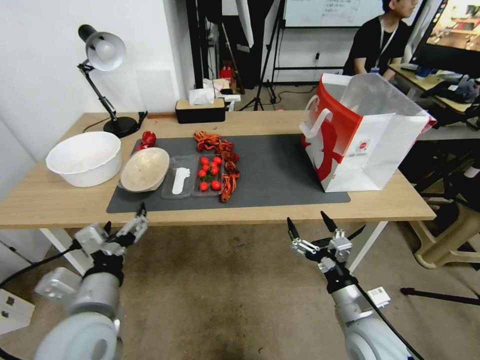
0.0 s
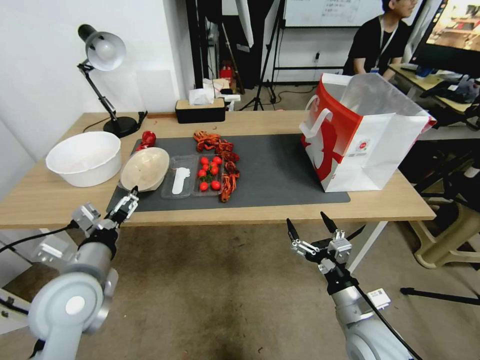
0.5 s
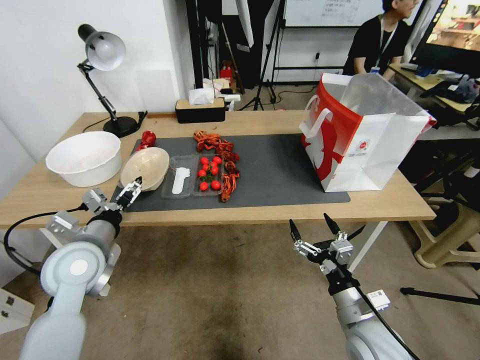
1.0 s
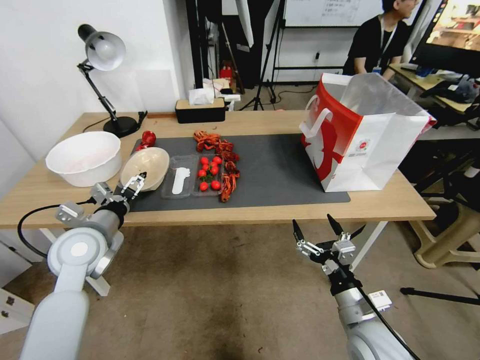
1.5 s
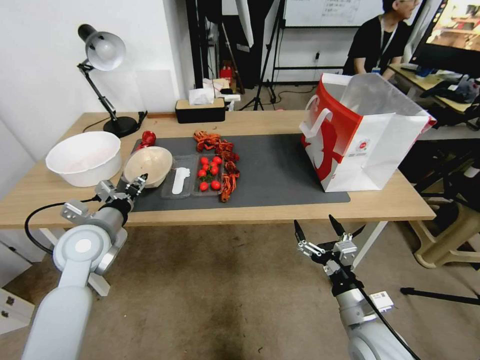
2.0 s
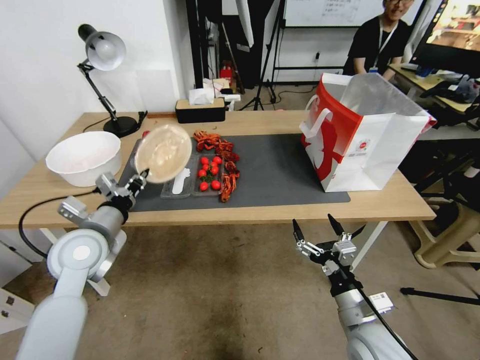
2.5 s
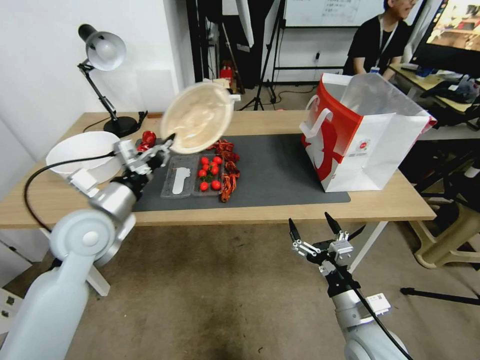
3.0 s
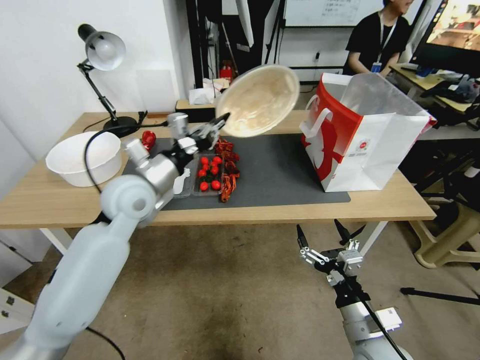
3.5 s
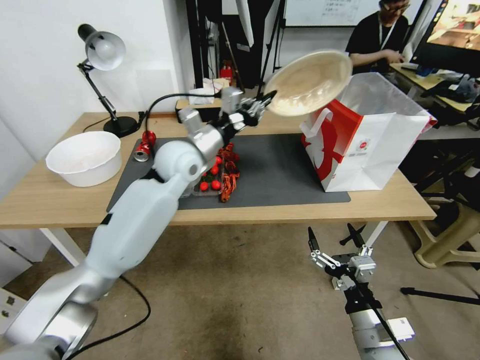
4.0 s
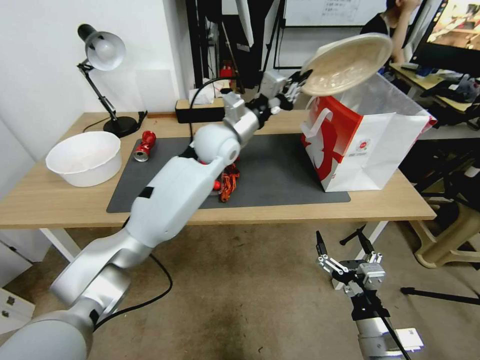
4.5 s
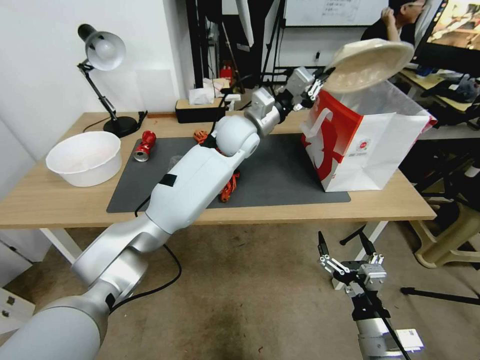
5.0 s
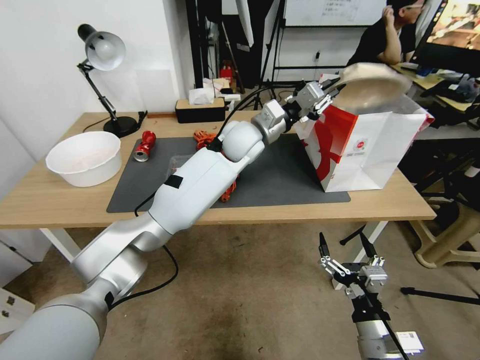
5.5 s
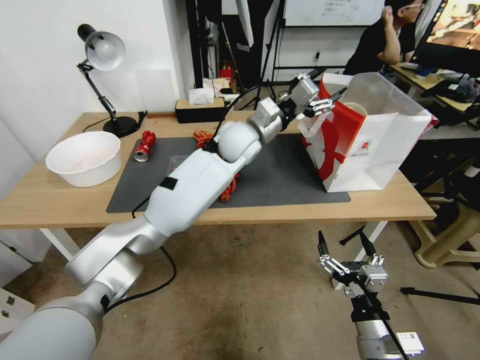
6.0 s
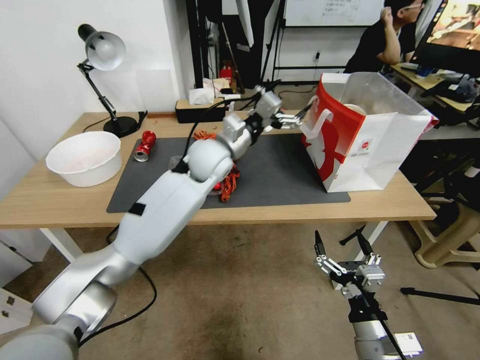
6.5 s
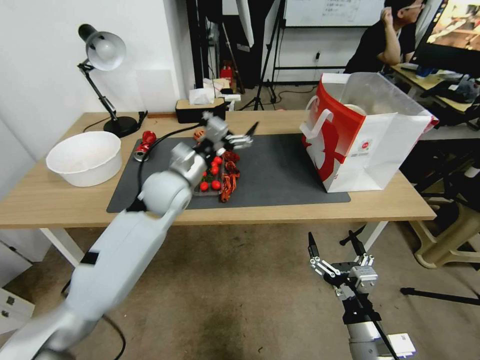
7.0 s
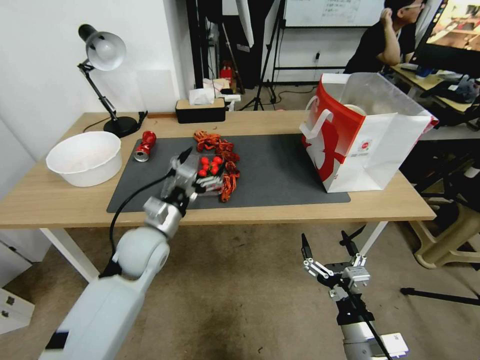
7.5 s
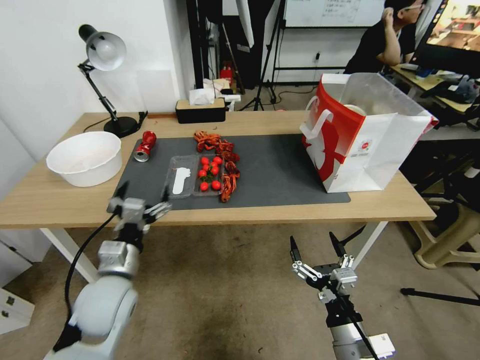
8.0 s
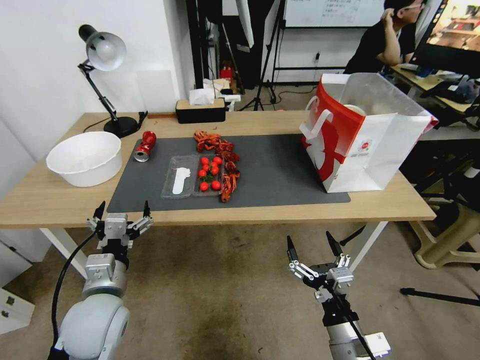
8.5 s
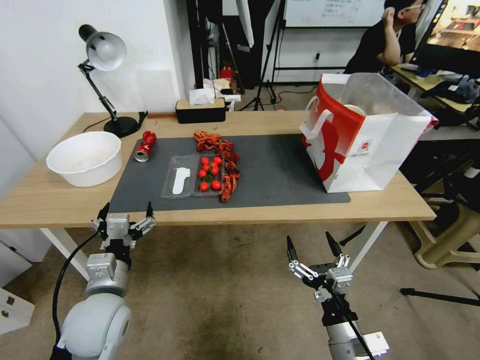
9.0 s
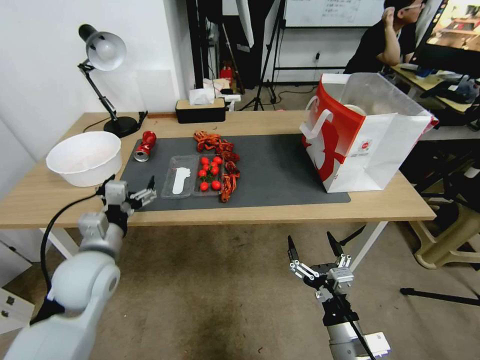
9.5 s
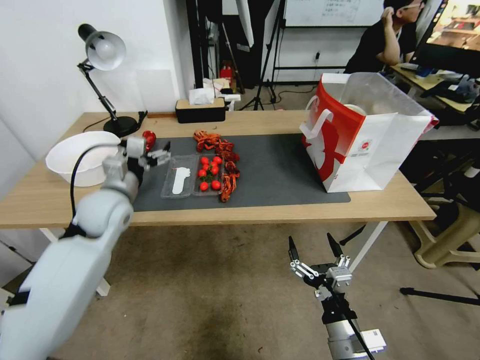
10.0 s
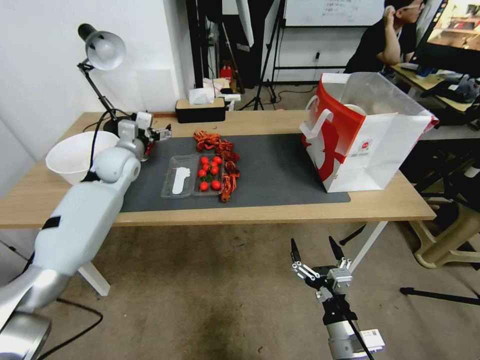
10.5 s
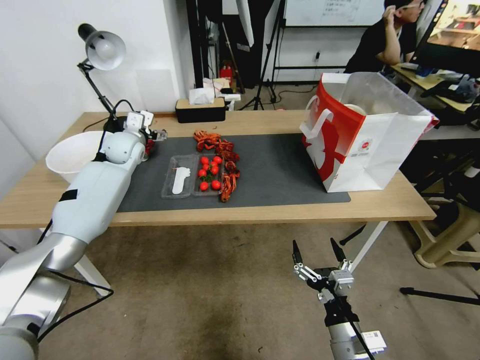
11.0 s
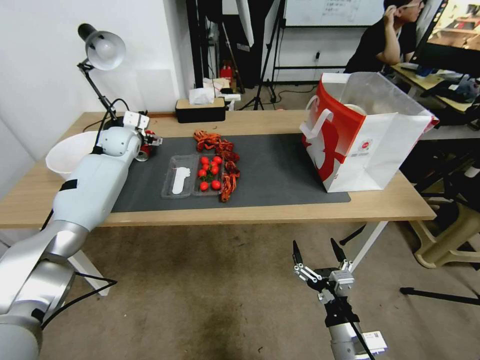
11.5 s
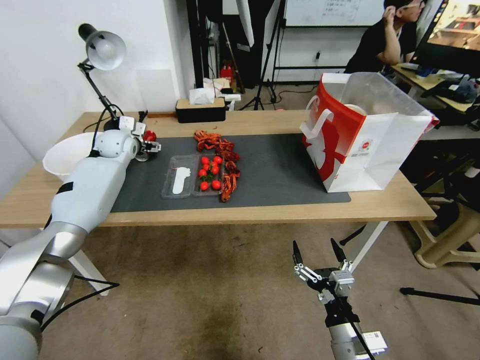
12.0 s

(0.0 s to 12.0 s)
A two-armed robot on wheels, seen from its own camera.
0.0 s - 2.0 s: The left gripper goes some 15 cm forward and to the left, and closes up.
2.0 s - 4.0 s: The left gripper travels to the right, forward and upward by roughly 20 cm, and closes.
4.0 s - 6.0 s: The left gripper moves to the right and forward, about 20 cm, and opens up.
6.0 s - 8.0 s: The left gripper goes some 40 cm backward, to the left and downward.
8.0 s - 10.0 s: The left gripper moves forward and upward, approximately 15 cm.
10.0 s - 12.0 s: The left gripper goes some 20 cm forward.

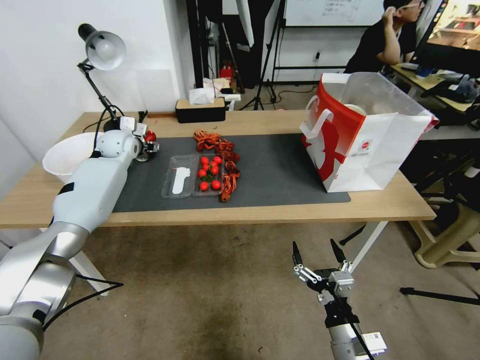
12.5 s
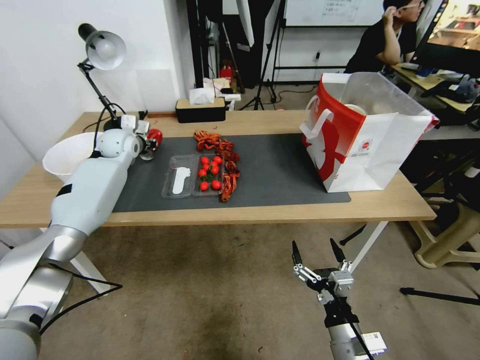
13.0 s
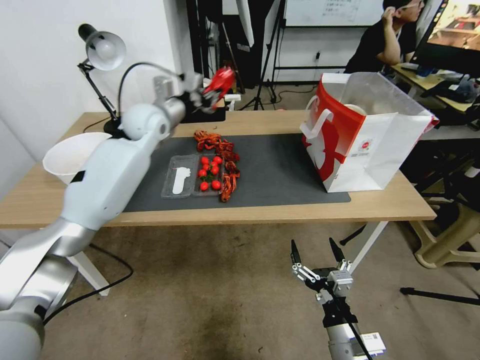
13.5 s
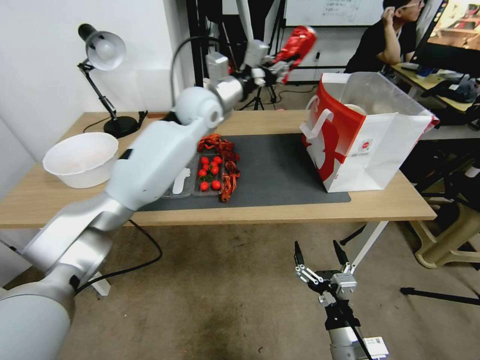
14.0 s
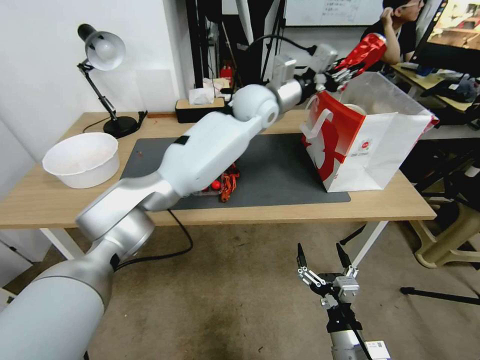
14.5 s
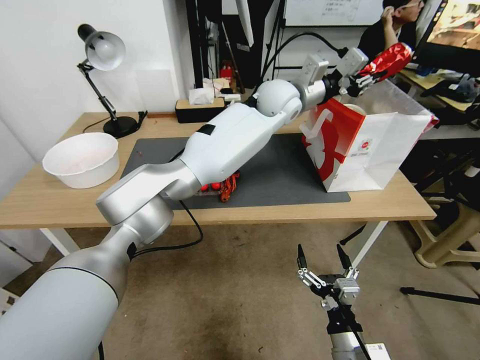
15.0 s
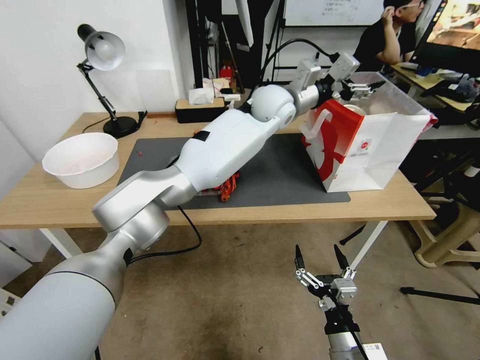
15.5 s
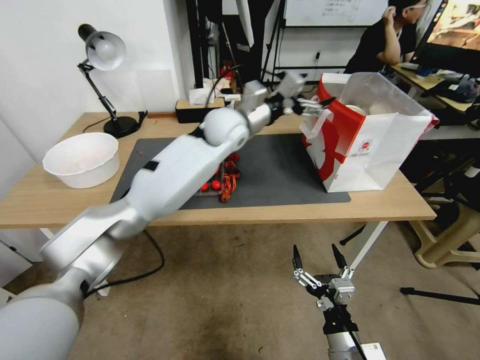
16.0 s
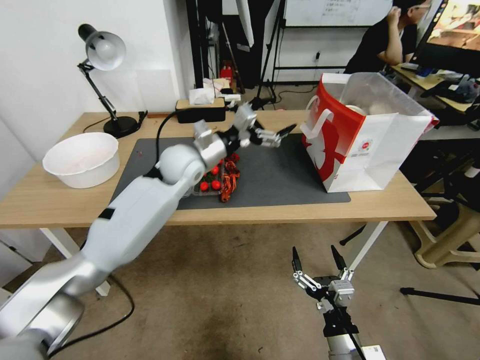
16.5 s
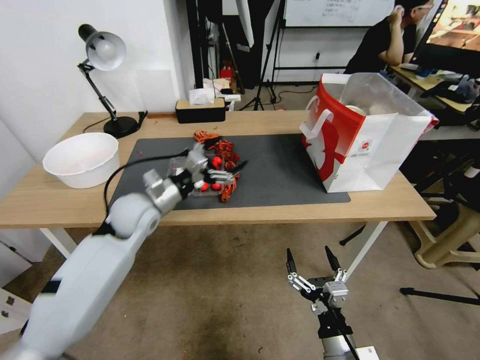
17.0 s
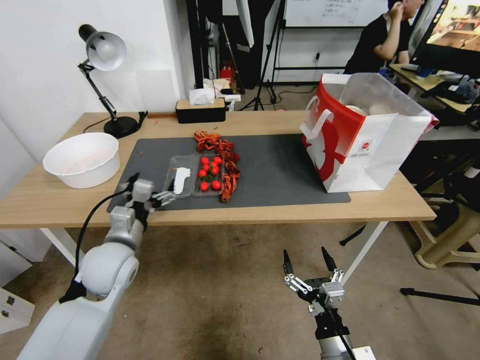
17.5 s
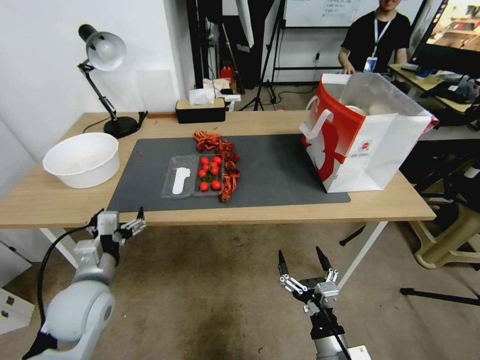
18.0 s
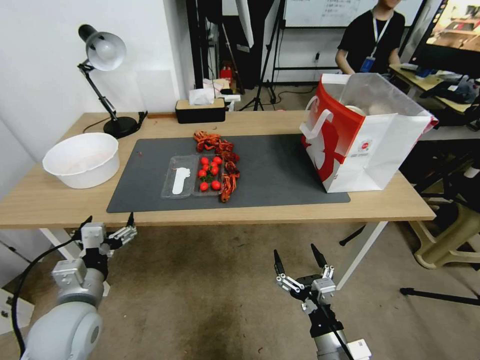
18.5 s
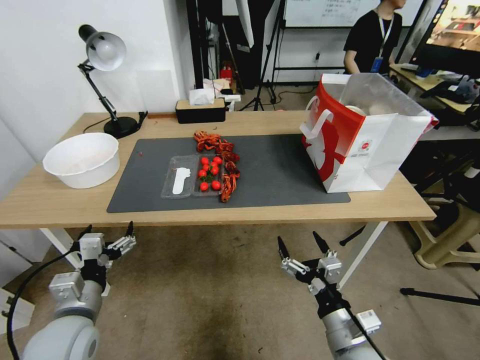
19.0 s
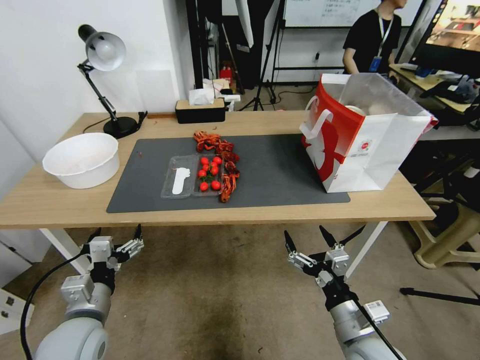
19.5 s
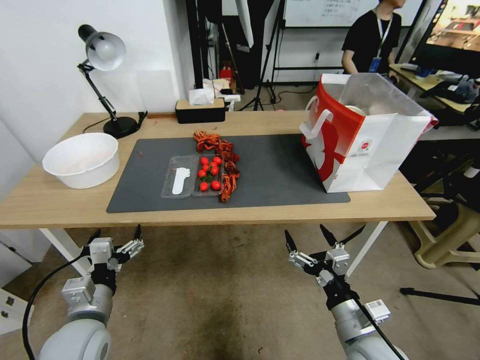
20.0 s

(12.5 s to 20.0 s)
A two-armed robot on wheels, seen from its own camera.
12.5 s - 14.5 s: The left gripper shifts some 35 cm to the right, and closes up.
14.5 s - 16.5 s: The left gripper travels to the left, downward and backward by approximately 20 cm, and opens.
16.5 s - 18.0 s: The left gripper heads backward, to the left and downward, covering approximately 30 cm.
18.0 s - 20.0 s: The right gripper goes roughly 5 cm upward. The left gripper moves backward, about 5 cm.

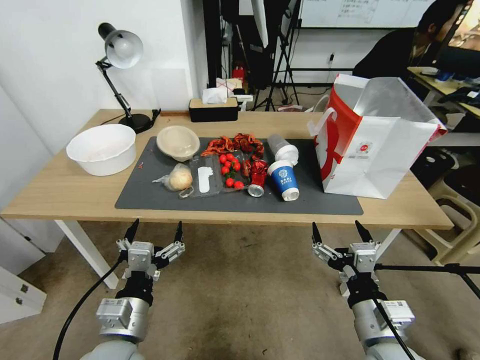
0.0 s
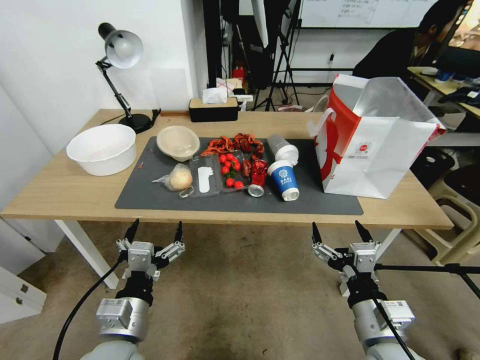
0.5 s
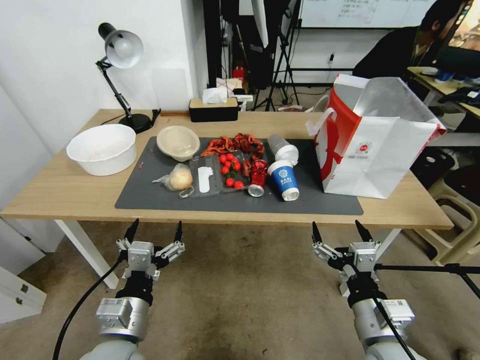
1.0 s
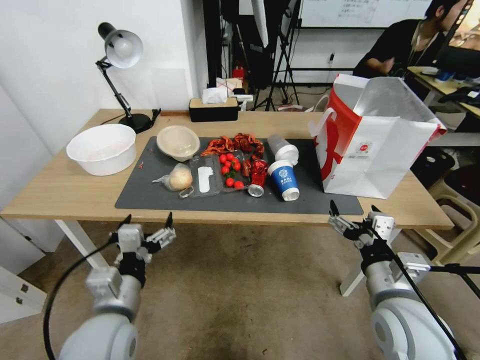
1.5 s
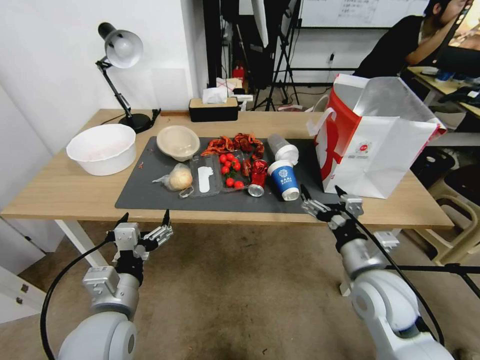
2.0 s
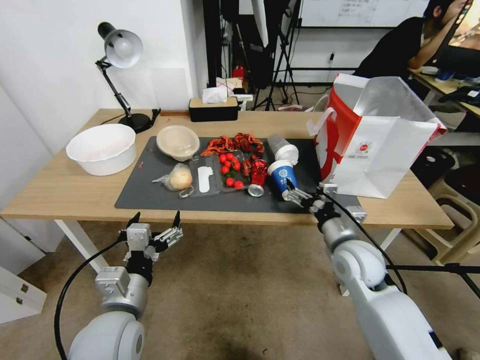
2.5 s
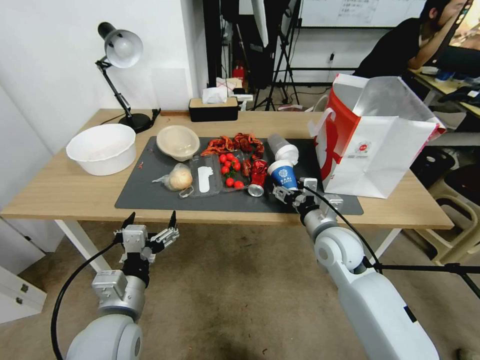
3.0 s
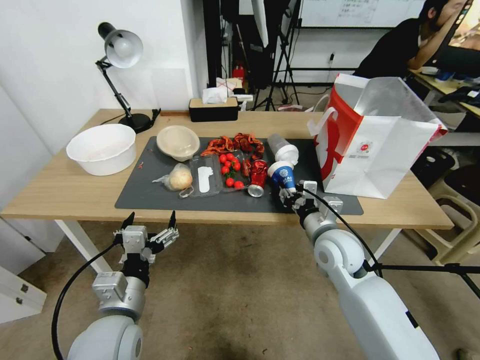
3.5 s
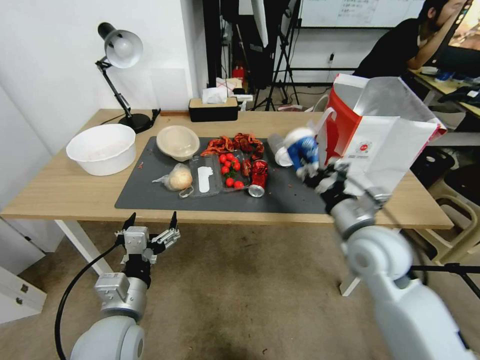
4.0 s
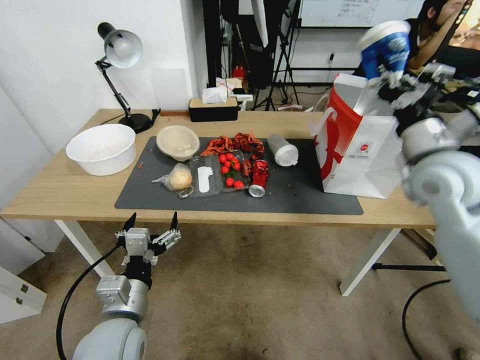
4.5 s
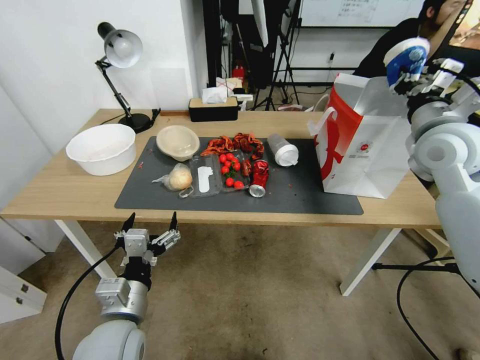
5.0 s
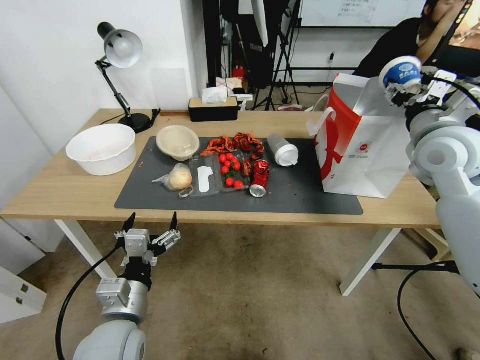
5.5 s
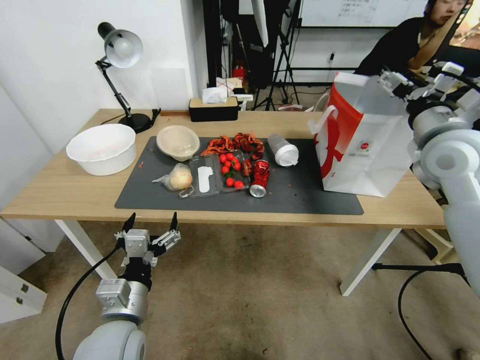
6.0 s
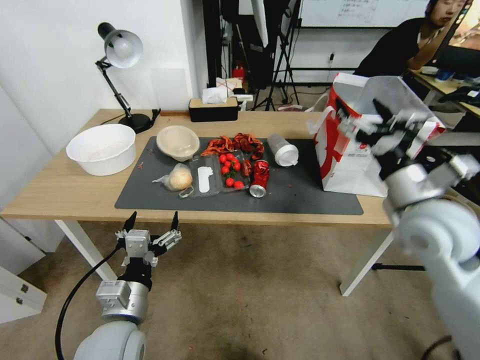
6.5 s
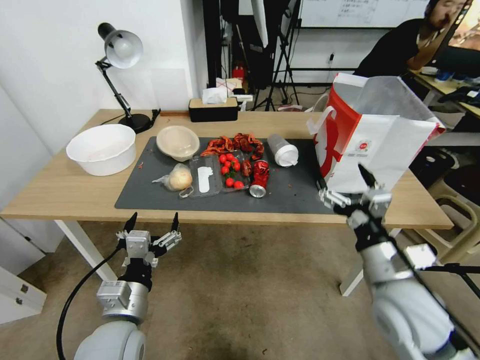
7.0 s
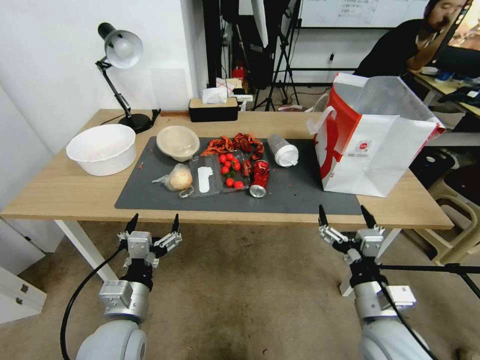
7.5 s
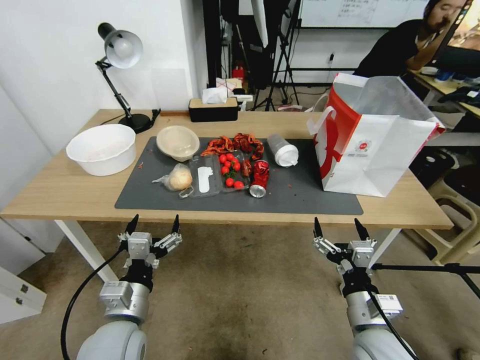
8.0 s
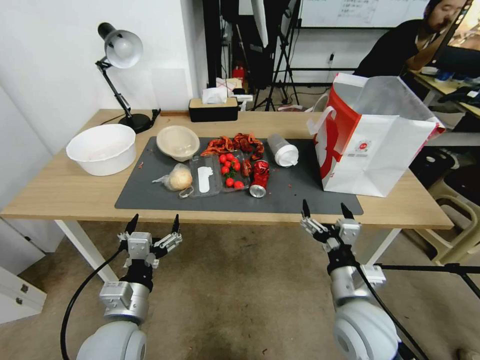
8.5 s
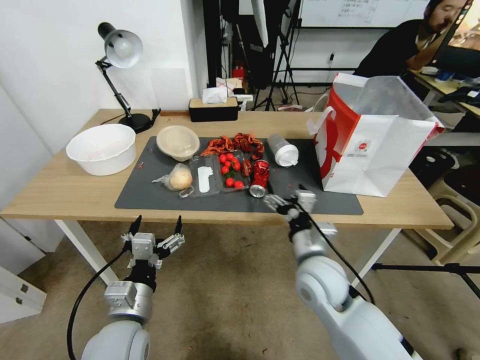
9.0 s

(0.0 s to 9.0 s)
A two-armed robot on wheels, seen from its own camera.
2.0 s - 4.5 s: The right gripper is displaced upward, forward and to the right by approximately 25 cm, and closes up.
4.5 s - 7.0 s: The right gripper is displaced backward, downward and to the left by approximately 25 cm, and opens up.
7.0 s - 9.0 s: The right gripper is displaced to the left, forward and downward by approximately 15 cm.
